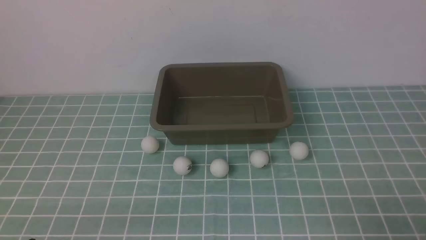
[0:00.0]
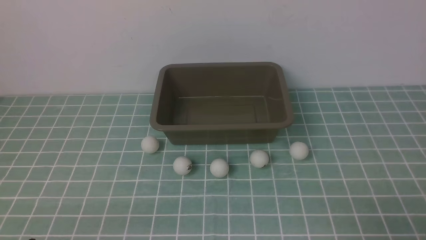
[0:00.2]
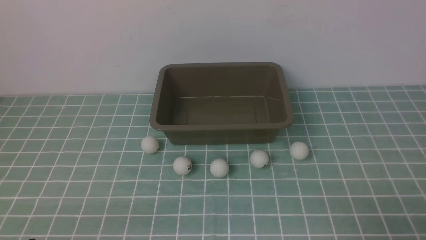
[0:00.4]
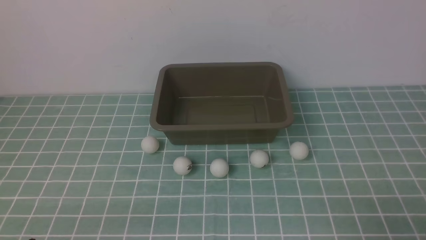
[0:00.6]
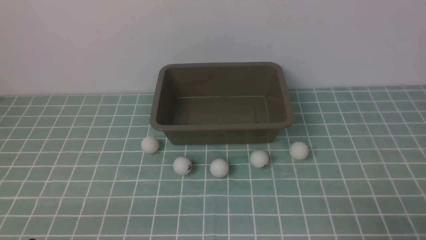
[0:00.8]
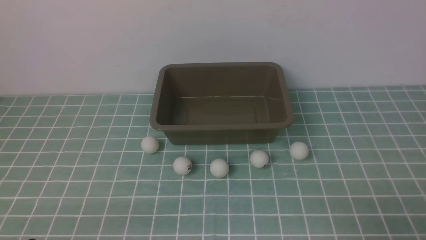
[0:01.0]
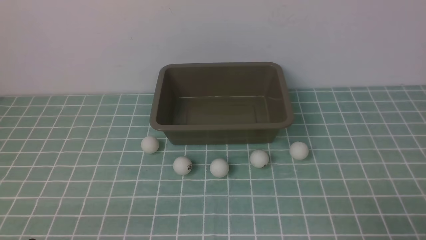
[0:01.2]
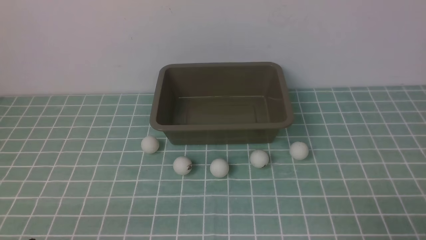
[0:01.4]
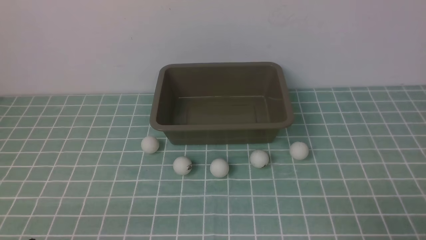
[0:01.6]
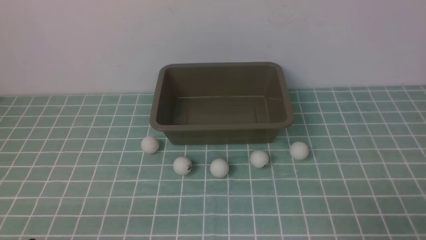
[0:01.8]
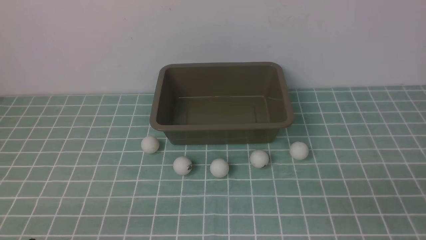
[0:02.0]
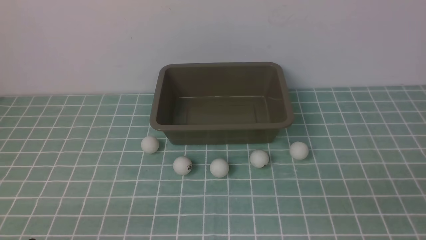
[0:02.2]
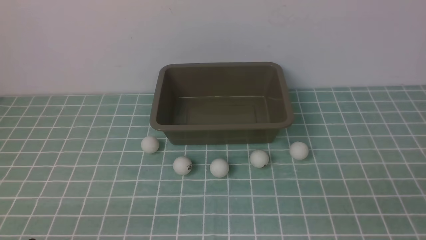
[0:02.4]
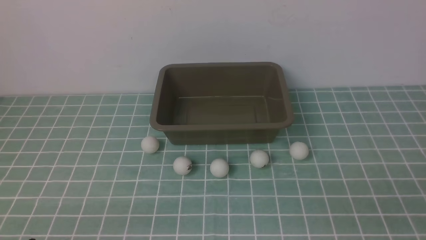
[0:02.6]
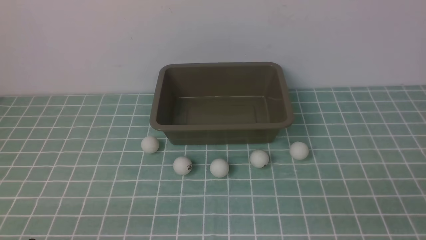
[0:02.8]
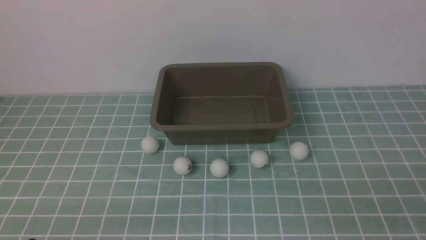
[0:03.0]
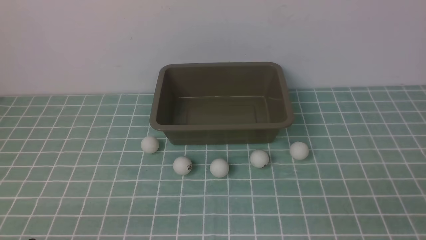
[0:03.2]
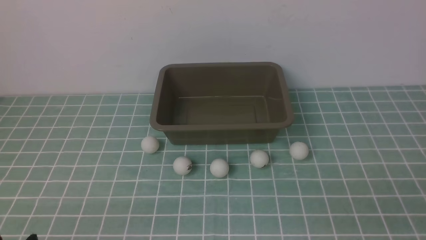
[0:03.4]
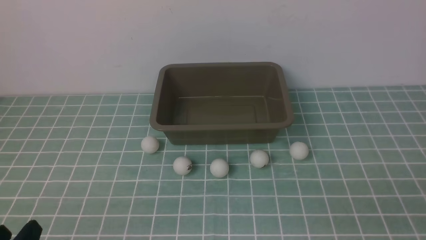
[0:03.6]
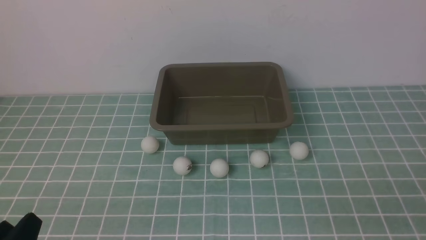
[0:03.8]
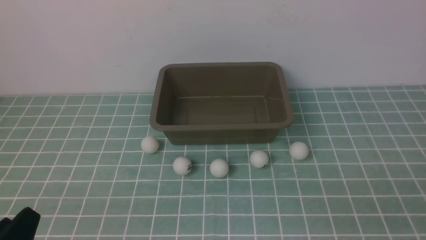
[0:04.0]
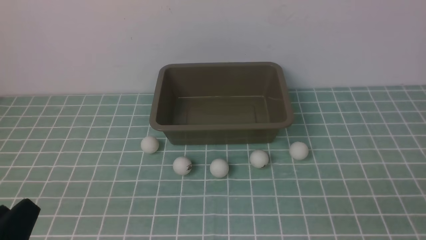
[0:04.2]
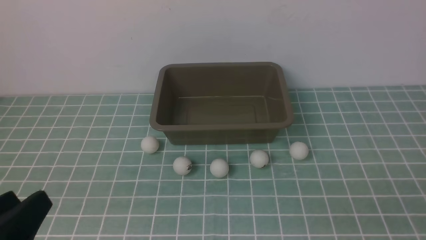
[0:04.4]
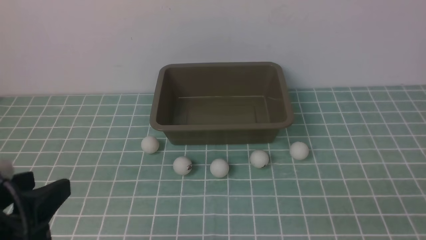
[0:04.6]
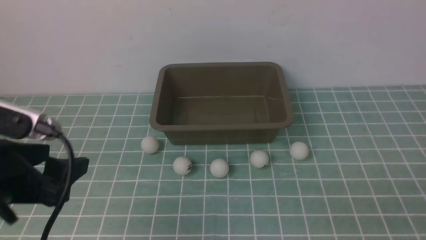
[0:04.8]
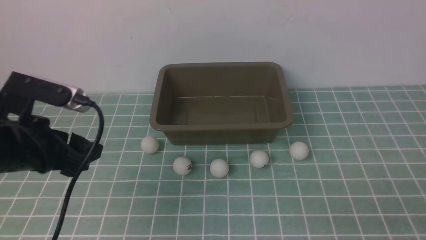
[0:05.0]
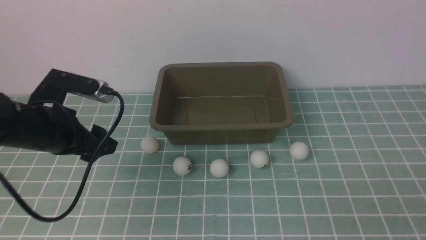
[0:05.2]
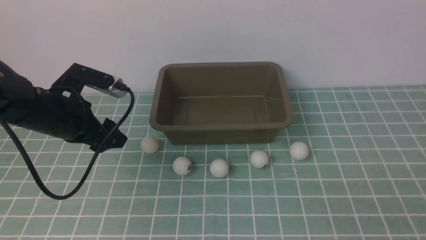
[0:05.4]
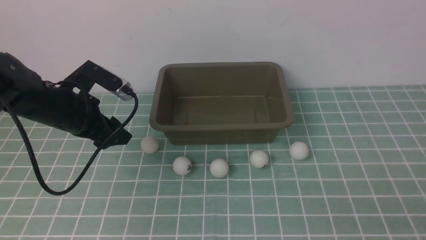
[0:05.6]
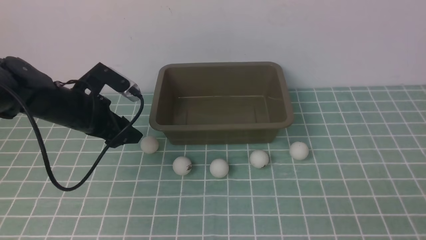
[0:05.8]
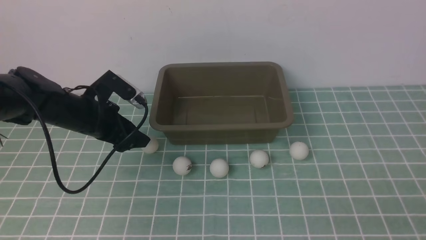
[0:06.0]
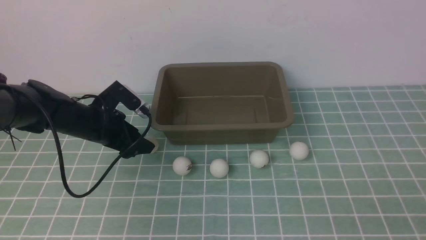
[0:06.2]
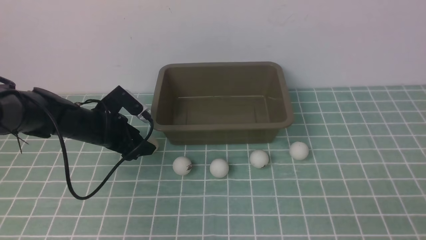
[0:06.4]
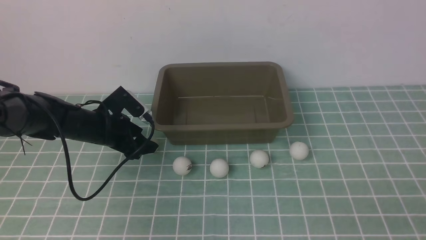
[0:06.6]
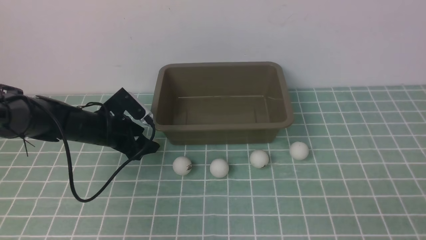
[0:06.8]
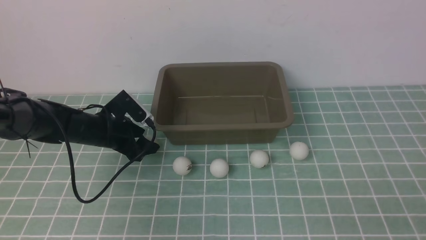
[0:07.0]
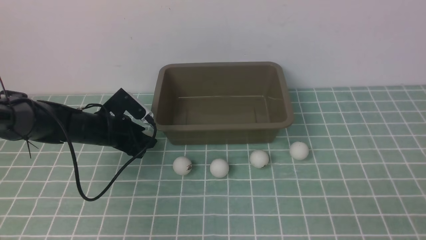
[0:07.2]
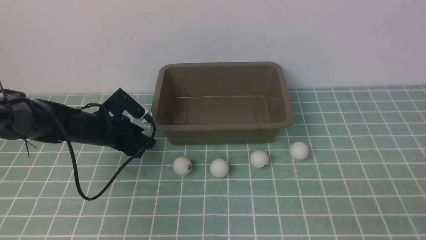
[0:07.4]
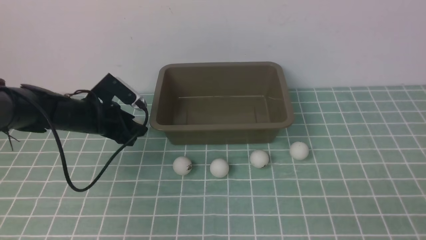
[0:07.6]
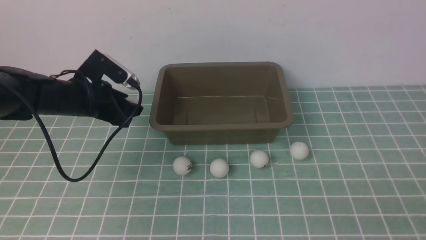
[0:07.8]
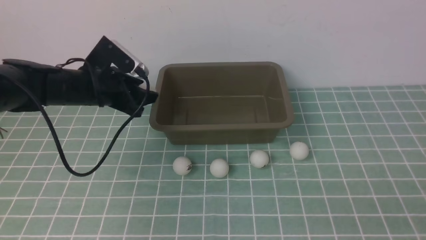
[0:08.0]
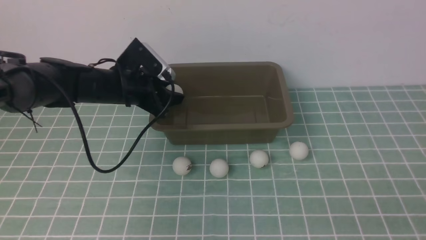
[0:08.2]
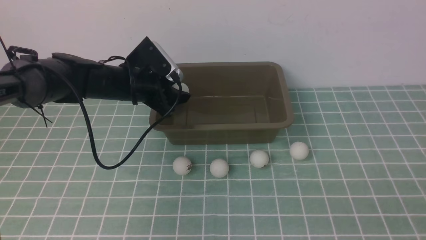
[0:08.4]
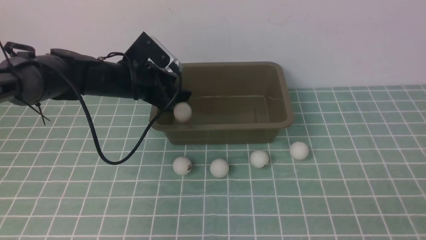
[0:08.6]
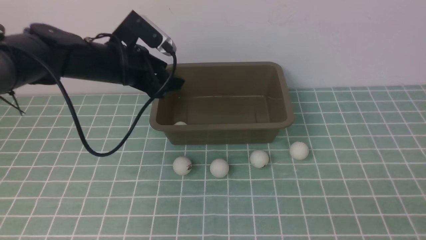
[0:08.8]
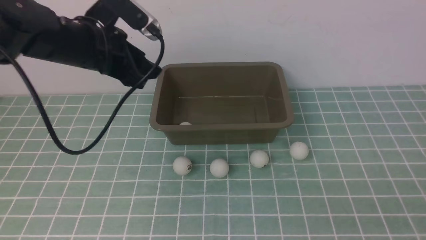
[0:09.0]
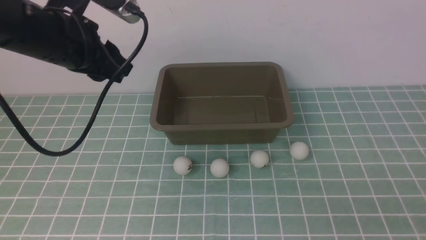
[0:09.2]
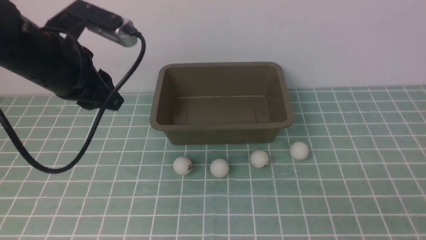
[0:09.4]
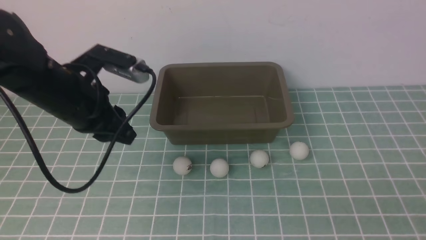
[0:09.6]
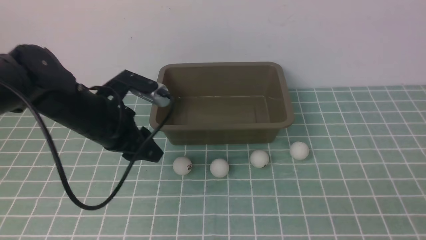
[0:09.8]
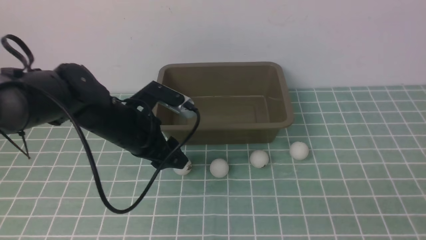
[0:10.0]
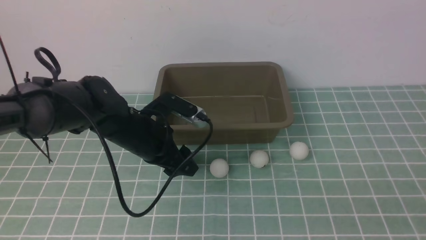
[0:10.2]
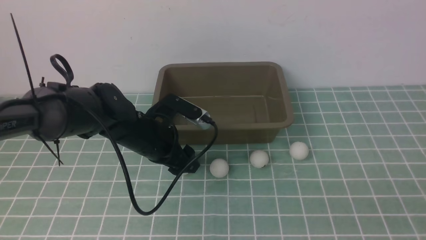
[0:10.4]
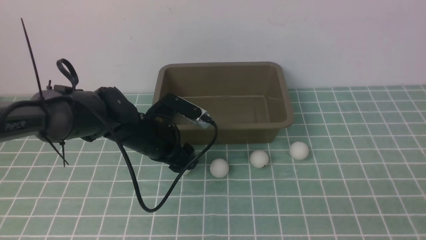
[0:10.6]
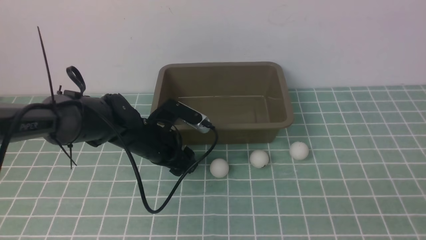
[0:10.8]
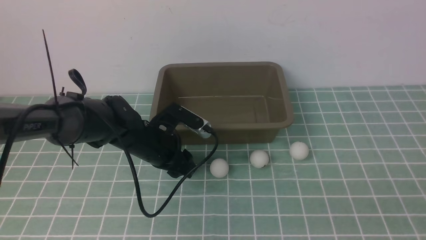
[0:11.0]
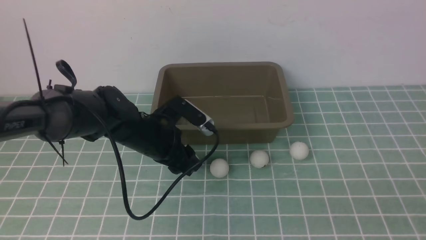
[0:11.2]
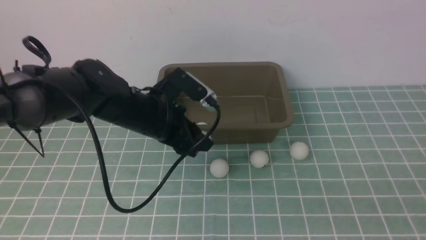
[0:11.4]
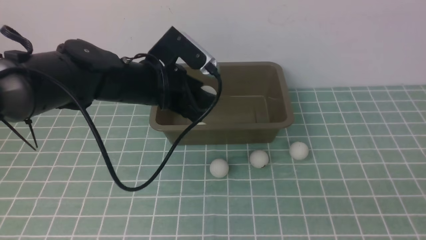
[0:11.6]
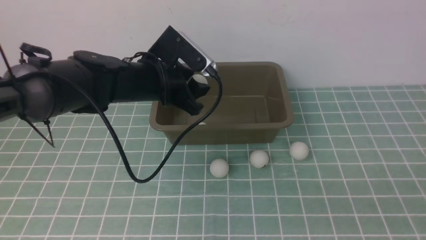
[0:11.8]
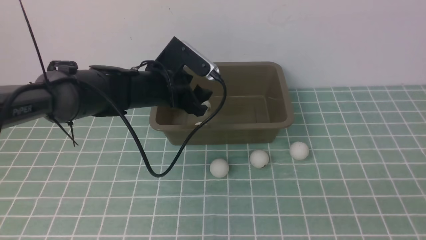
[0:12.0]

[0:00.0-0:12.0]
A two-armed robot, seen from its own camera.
Step, 0:00.0 to 0:07.6: use the left arm to clamp the table tennis ball closest to it.
Step, 0:07.8 to 0:08.6: use the left arm to put the table tennis ball into the box.
Step, 0:09.0 to 0:11.2: use the left arm to clamp the table tennis ball closest to it.
0:03.0 to 0:04.4: The left gripper shifts about 15 cm upward and forward, and opens its fingers.
0:04.4 to 0:06.0: The left gripper is displaced forward and downward by some 25 cm.
0:06.0 to 0:07.6: The left gripper heads upward, covering roughly 5 cm, and closes.
0:07.6 to 0:09.0: The left gripper heads backward and upward, covering approximately 10 cm.
0:09.0 to 0:10.4: The left gripper travels downward and to the right by roughly 10 cm, and opens, then closes again.
0:10.4 to 0:12.0: The left gripper heads upward and backward, covering about 20 cm, and opens its fingers.

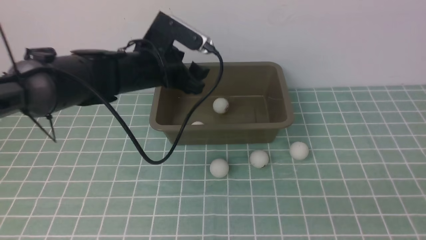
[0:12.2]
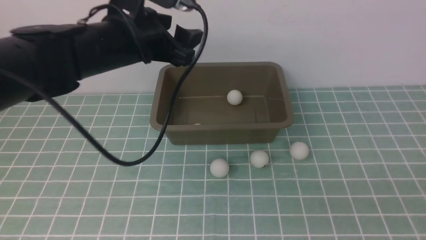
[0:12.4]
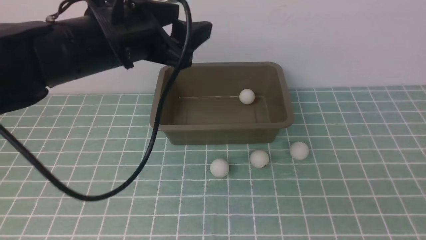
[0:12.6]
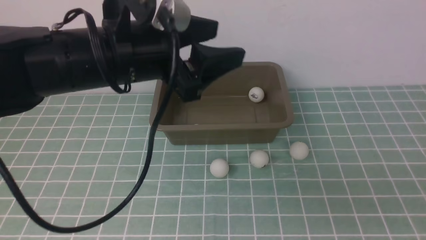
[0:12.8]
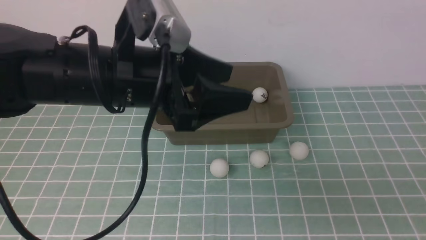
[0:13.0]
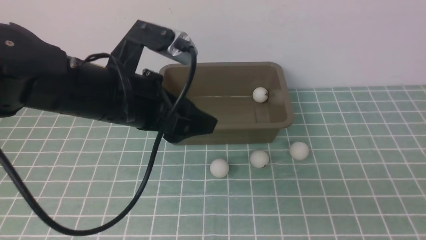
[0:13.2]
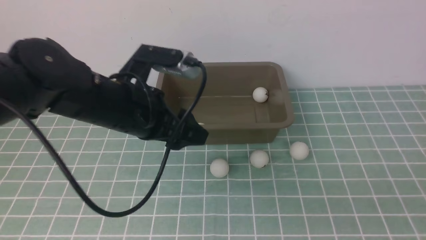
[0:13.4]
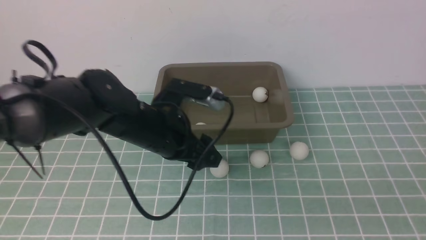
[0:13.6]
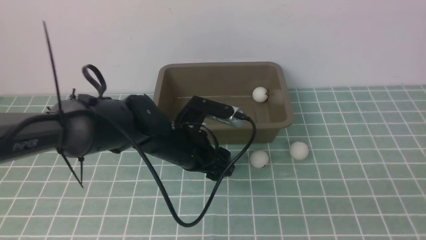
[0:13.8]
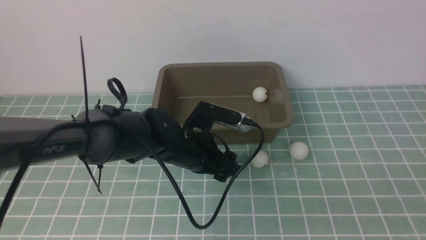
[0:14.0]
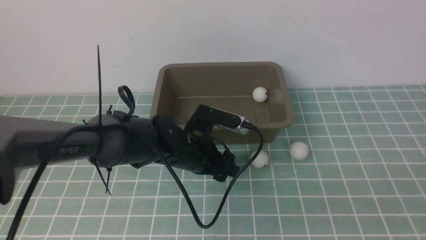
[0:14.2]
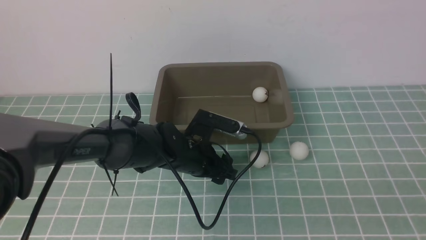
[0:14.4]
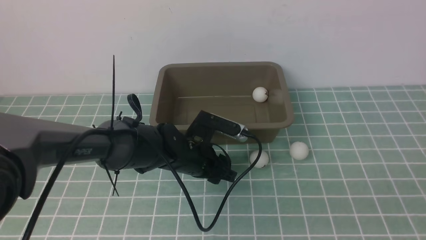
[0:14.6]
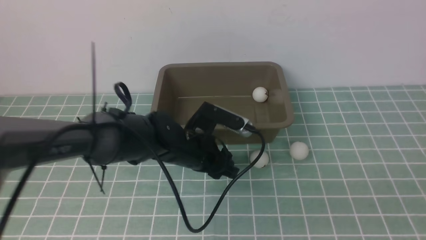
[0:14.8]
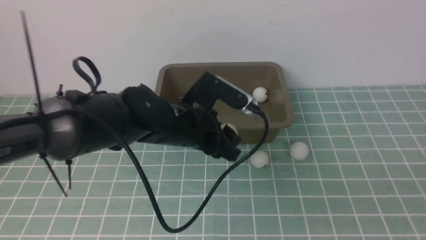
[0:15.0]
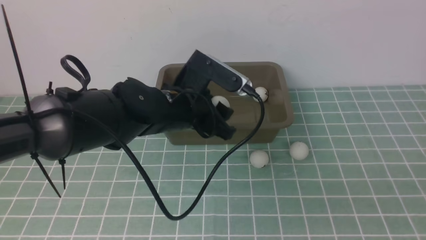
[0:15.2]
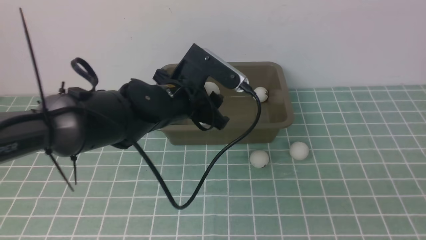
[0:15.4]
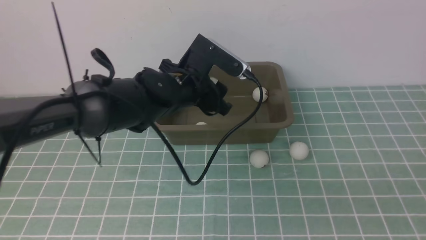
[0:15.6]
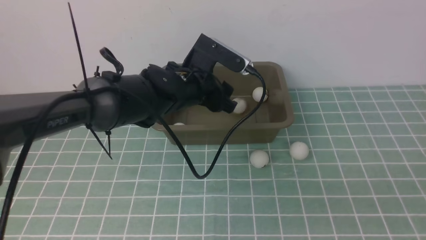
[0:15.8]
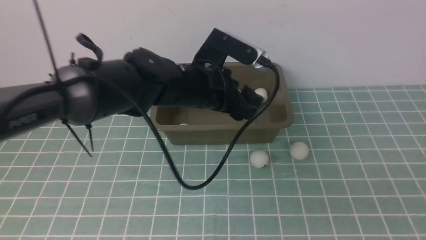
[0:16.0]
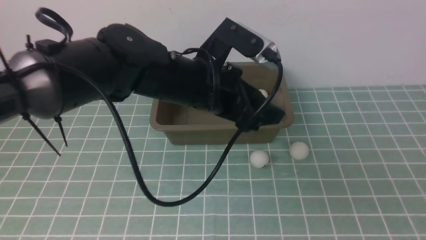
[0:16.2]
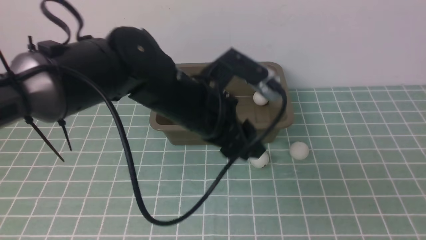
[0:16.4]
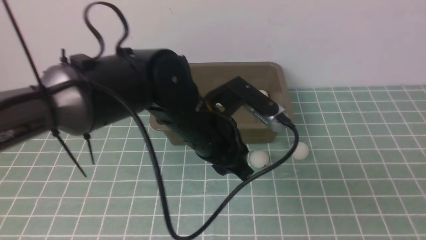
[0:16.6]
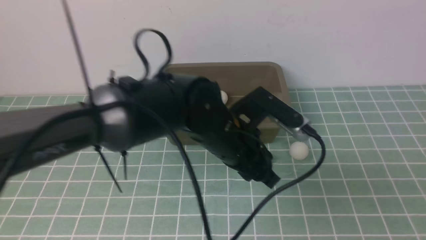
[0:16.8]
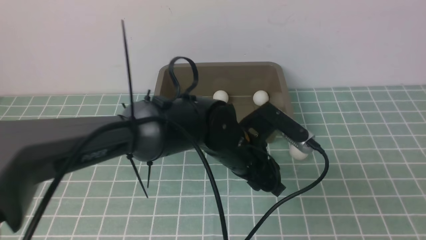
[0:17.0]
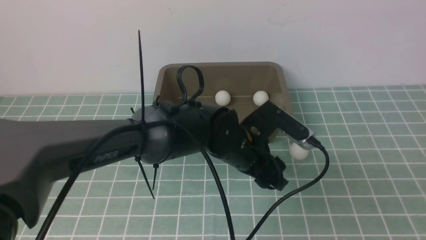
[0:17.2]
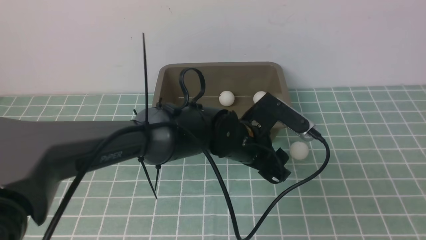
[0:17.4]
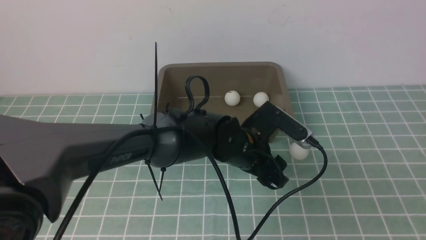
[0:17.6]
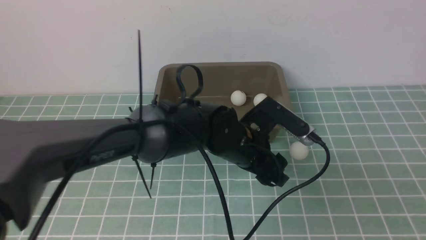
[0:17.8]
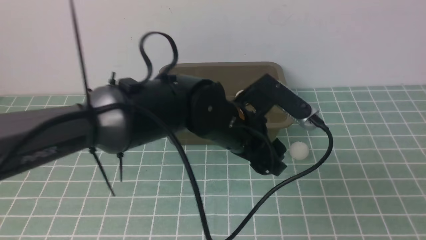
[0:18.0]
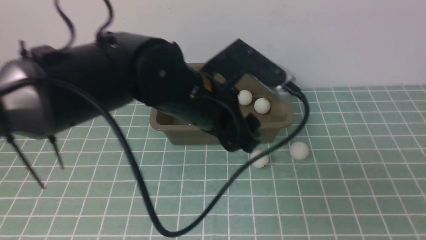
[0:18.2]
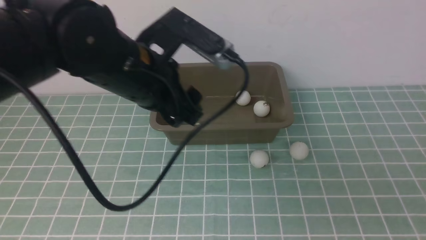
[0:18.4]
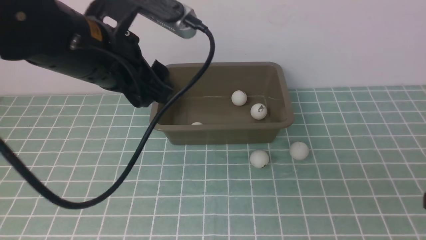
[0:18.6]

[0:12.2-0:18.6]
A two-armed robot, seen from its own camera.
Step, 0:12.4 to 0:14.8: use the left arm to clamp the table tennis ball closest to it.
Step, 0:15.2 to 0:15.8: use the left arm to put the table tennis ball into the box.
0:12.2 to 0:13.8: The left gripper goes about 20 cm downward, and closes up.
0:13.8 to 0:15.4: The left gripper moves upward, some 15 cm.
0:15.4 to 0:17.0: The left gripper goes roughly 10 cm downward and to the right, and closes, then reopens.
0:17.0 to 0:18.6: The left gripper is displaced upward and to the left by about 25 cm. Meanwhile the right gripper is displaced forward by about 15 cm.
